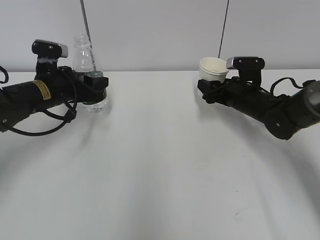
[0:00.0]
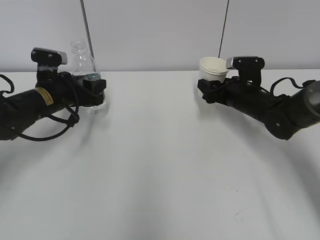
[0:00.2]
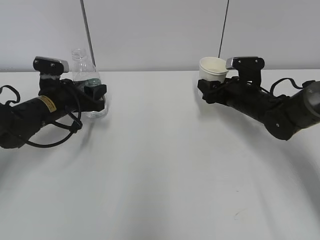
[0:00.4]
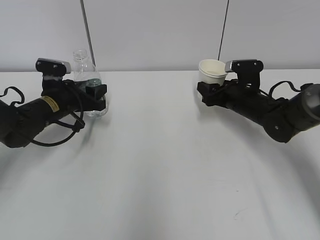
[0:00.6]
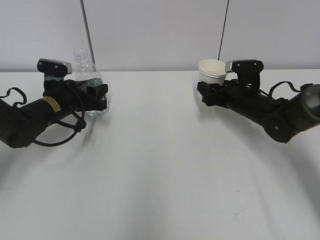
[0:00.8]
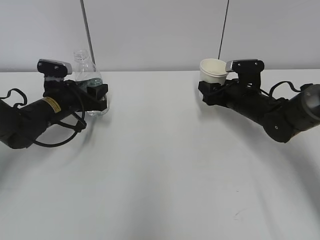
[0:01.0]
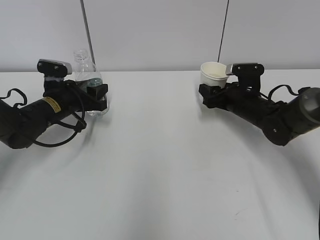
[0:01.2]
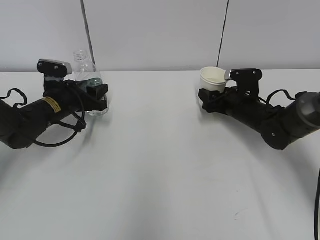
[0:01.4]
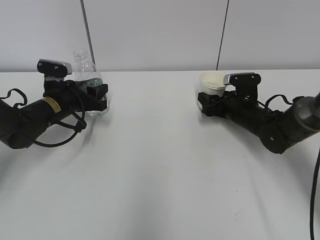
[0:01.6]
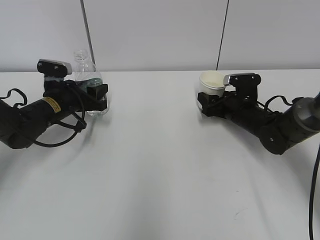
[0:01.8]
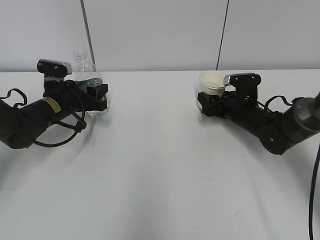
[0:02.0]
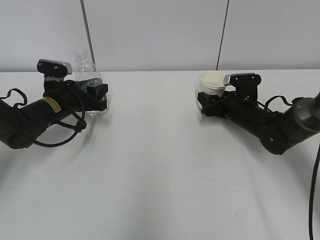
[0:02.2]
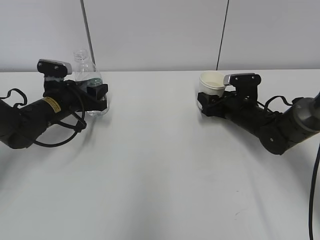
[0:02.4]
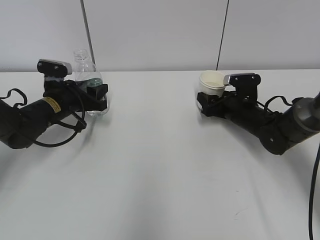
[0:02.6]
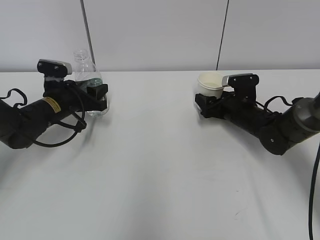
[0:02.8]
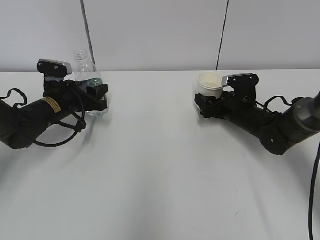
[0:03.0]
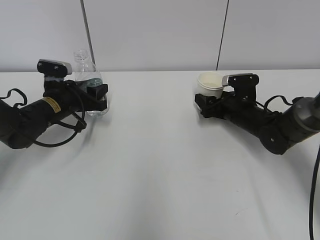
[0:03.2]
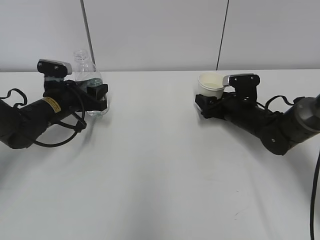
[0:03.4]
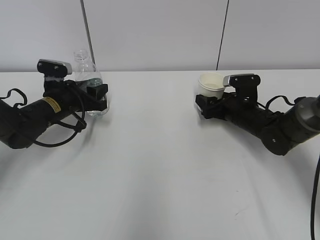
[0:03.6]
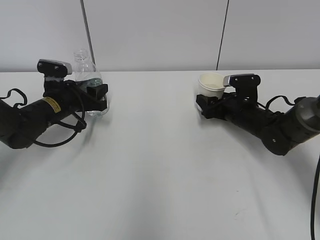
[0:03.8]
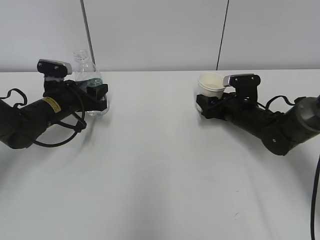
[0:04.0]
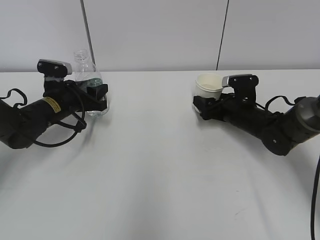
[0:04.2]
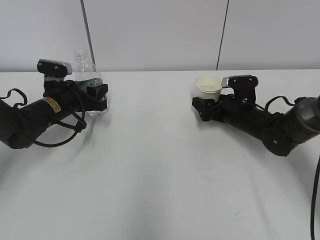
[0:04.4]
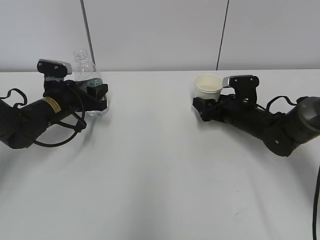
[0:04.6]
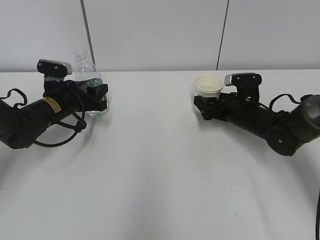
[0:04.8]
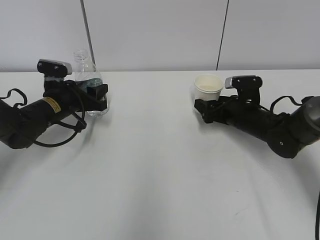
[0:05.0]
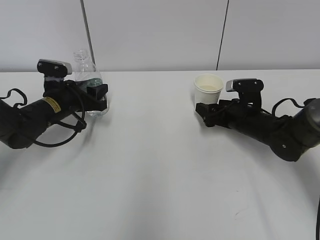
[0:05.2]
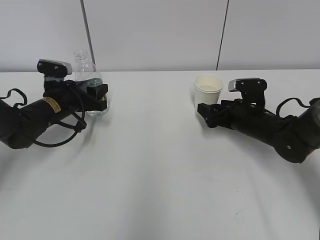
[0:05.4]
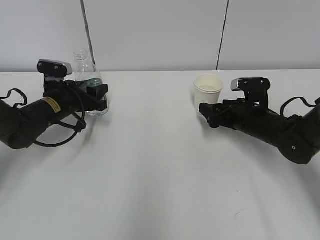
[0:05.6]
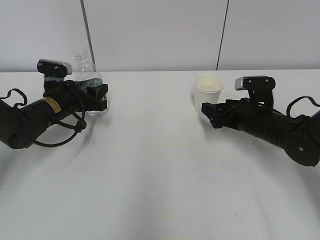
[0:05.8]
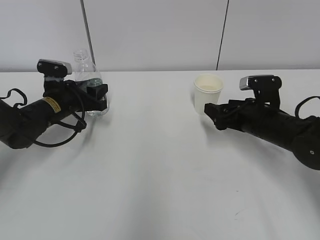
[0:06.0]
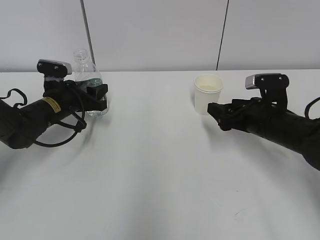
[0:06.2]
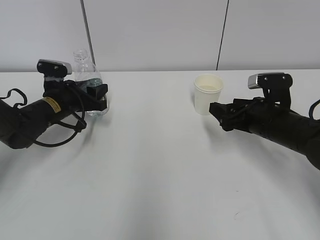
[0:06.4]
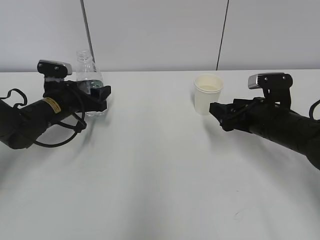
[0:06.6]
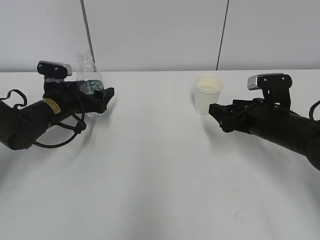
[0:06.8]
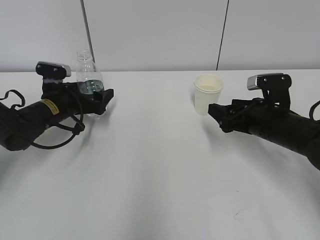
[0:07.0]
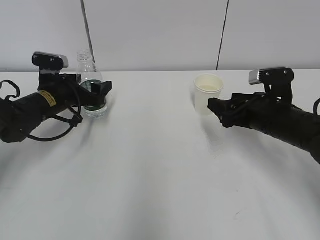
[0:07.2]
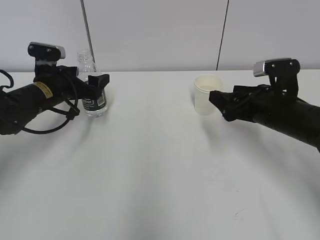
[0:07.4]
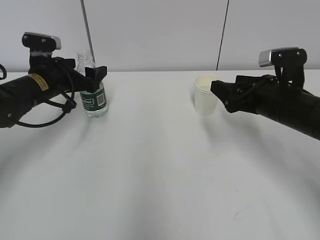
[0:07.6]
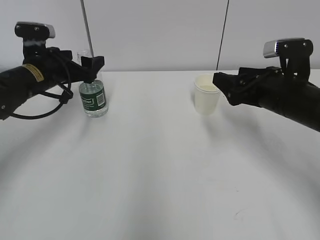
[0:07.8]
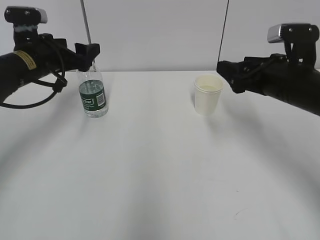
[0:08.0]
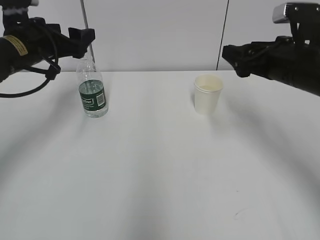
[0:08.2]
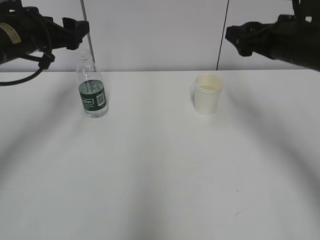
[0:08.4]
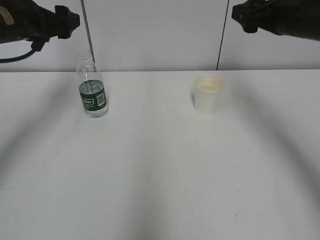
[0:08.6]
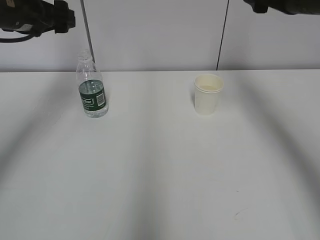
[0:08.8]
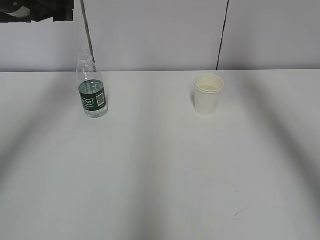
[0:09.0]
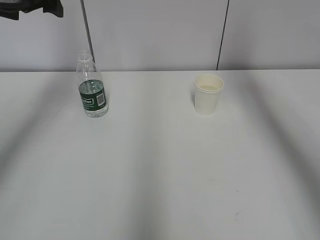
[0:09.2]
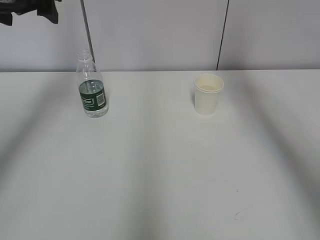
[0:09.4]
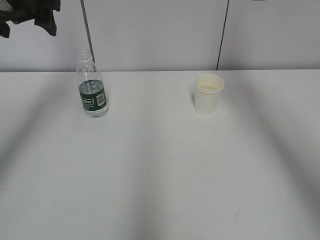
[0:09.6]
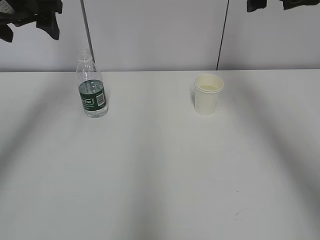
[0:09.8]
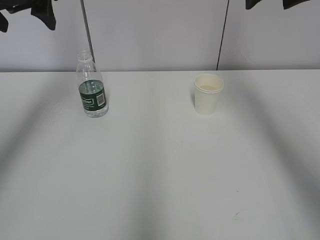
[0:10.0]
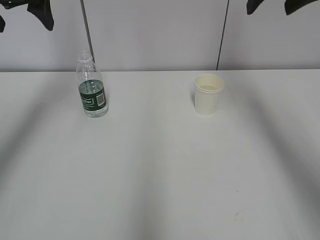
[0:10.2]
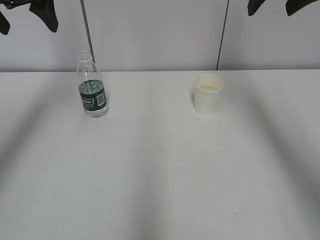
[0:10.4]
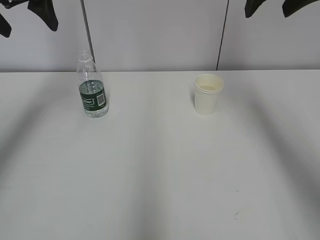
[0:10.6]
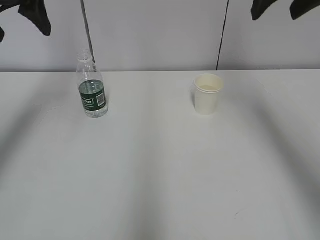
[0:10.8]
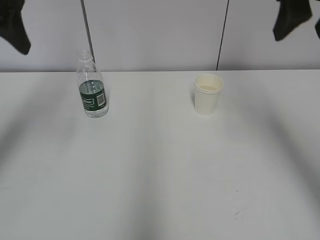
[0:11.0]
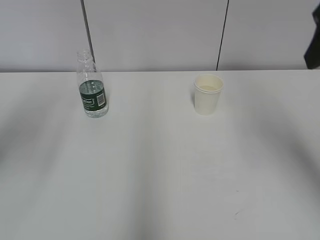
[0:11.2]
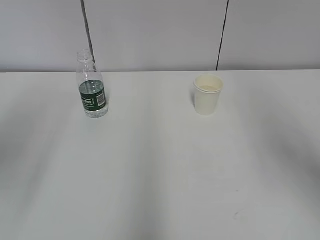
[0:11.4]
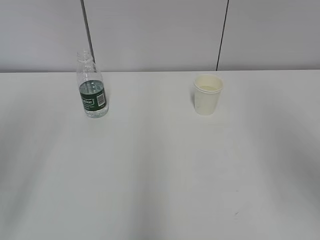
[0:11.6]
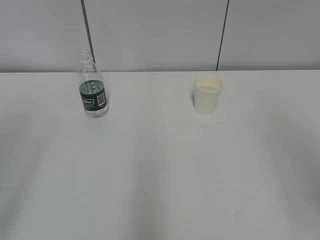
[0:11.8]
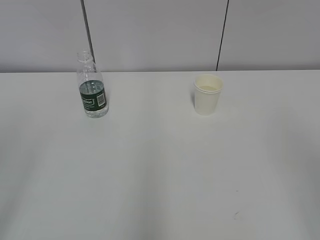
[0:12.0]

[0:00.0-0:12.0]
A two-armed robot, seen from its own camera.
Step, 0:00.0 to 0:01.4: Place the water bottle with the left hand.
0:00.0 to 0:01.6: The left gripper is displaced downward by some 5 cm.
0:01.6 to 0:03.0: The right gripper opens up.
0:03.0 to 0:04.4: The right gripper closes, then reopens.
0:04.4 to 0:06.0: The right gripper moves backward, some 5 cm.
0:06.0 to 0:07.6: Both grippers move upward, approximately 5 cm. The left gripper opens.
0:07.6 to 0:09.0: Both grippers travel together upward, roughly 20 cm.
0:09.0 to 0:10.4: The right gripper ends up some 5 cm from where it was; the left gripper shifts about 5 cm upward.
0:10.4 to 0:12.0: The grippers both shift backward by roughly 30 cm.

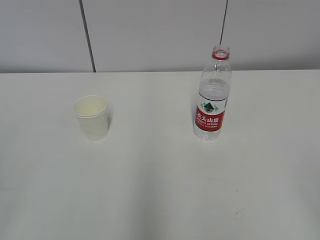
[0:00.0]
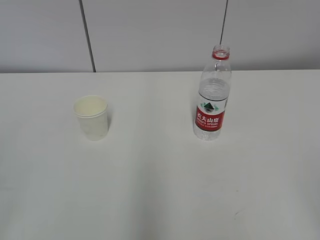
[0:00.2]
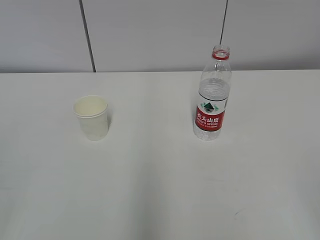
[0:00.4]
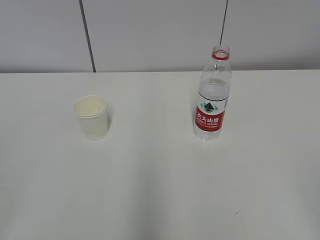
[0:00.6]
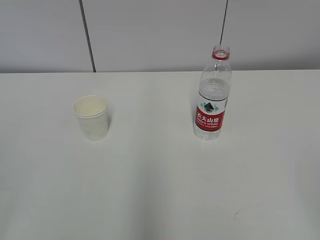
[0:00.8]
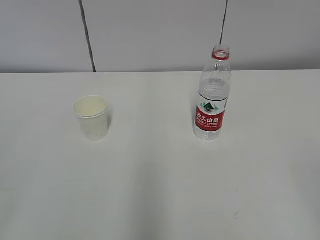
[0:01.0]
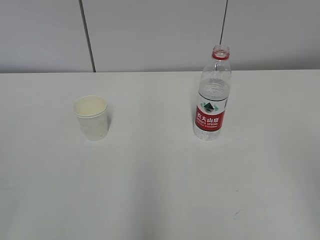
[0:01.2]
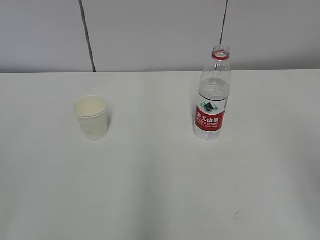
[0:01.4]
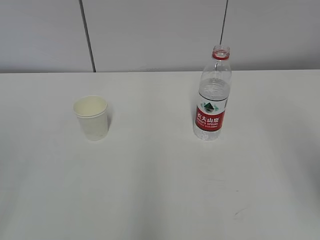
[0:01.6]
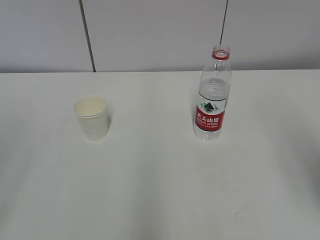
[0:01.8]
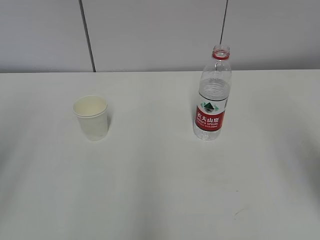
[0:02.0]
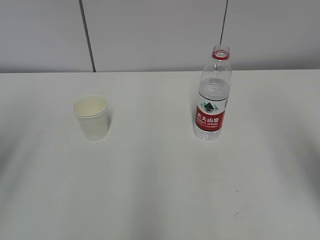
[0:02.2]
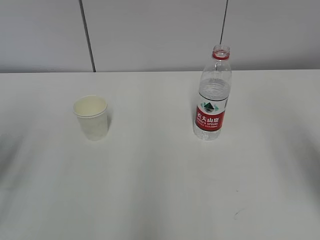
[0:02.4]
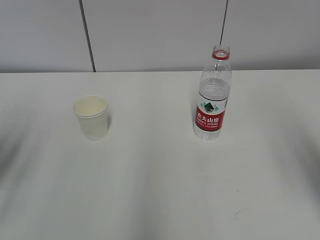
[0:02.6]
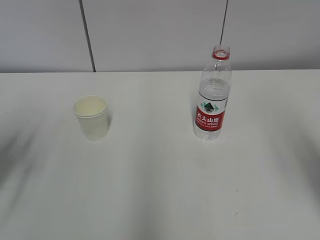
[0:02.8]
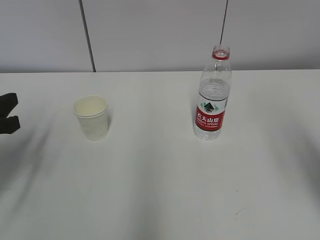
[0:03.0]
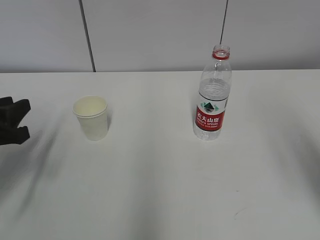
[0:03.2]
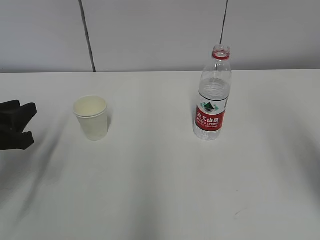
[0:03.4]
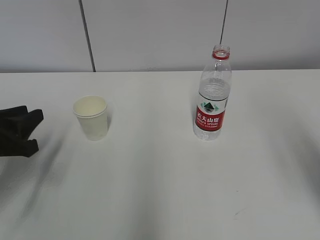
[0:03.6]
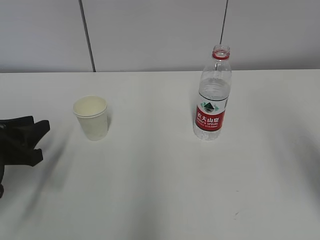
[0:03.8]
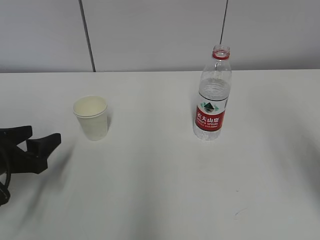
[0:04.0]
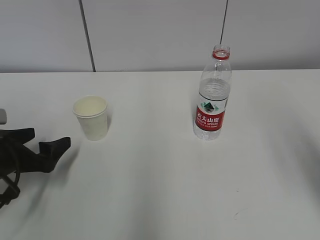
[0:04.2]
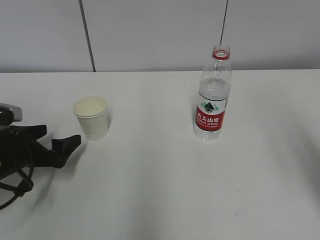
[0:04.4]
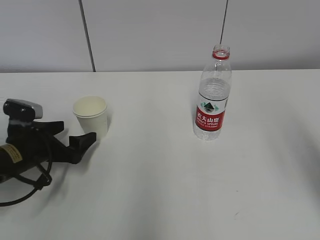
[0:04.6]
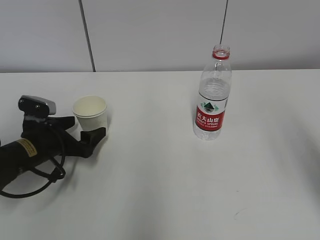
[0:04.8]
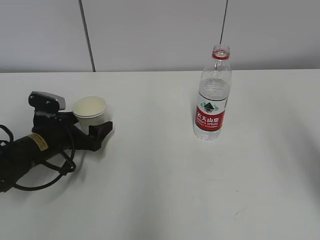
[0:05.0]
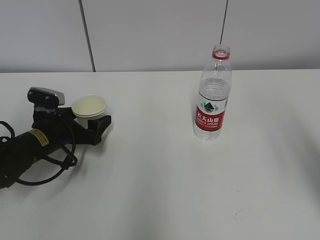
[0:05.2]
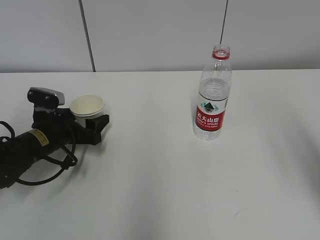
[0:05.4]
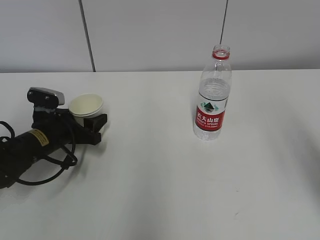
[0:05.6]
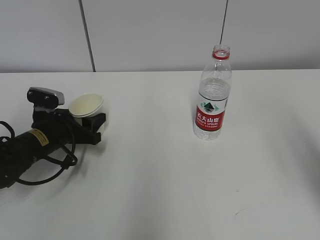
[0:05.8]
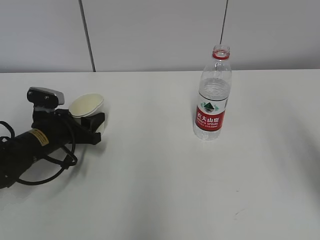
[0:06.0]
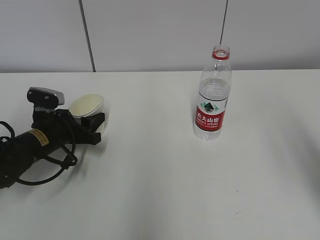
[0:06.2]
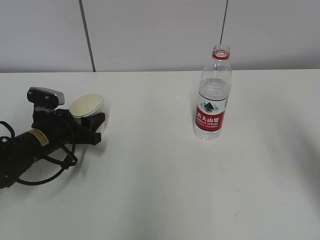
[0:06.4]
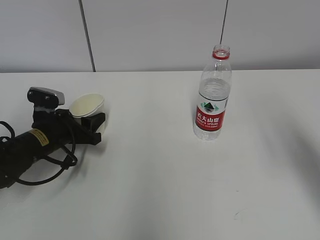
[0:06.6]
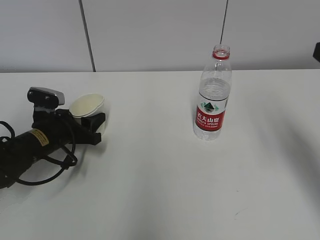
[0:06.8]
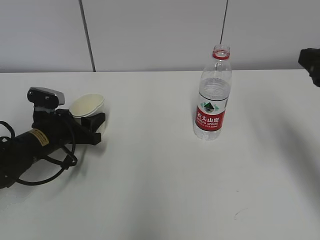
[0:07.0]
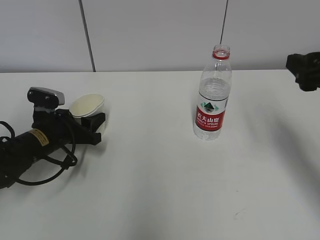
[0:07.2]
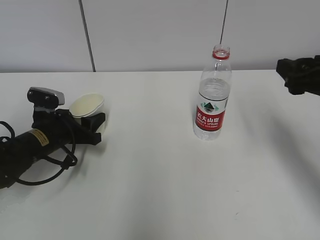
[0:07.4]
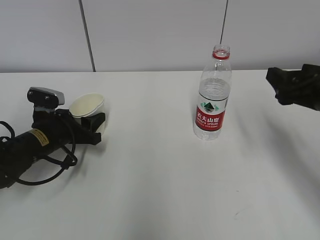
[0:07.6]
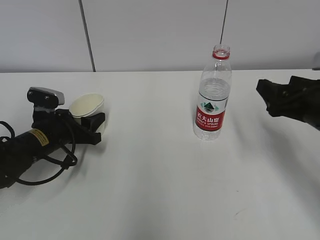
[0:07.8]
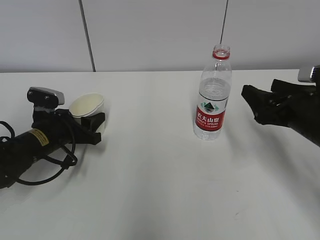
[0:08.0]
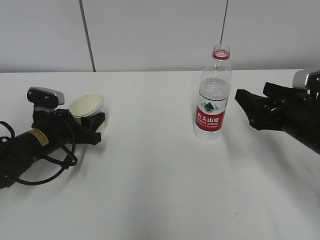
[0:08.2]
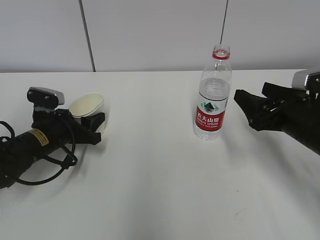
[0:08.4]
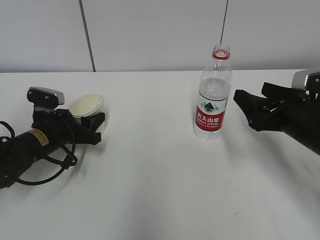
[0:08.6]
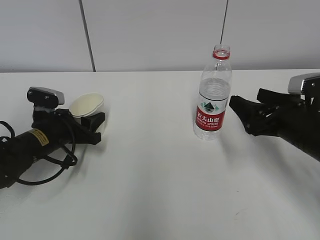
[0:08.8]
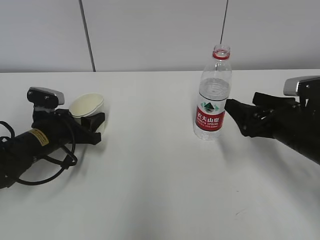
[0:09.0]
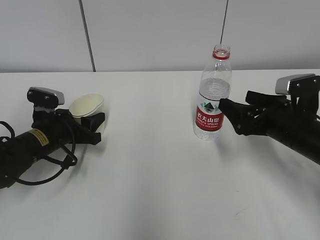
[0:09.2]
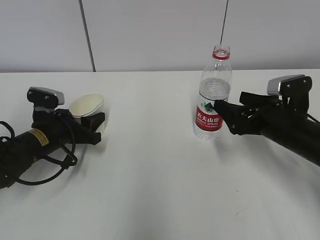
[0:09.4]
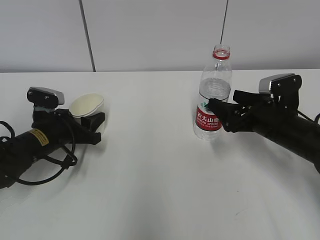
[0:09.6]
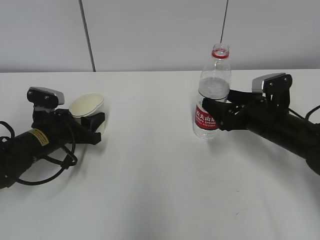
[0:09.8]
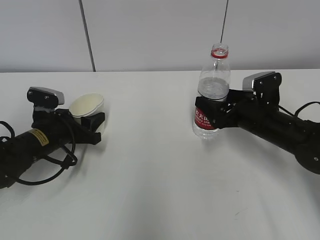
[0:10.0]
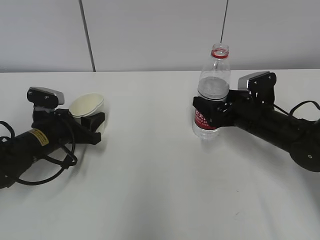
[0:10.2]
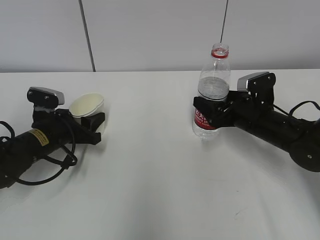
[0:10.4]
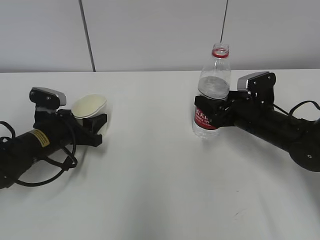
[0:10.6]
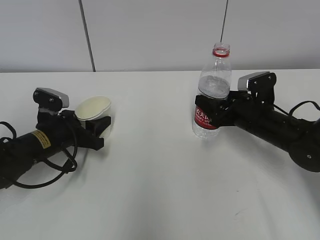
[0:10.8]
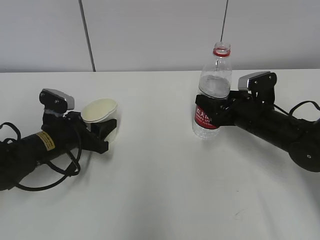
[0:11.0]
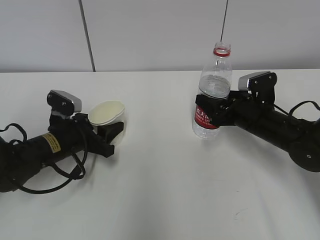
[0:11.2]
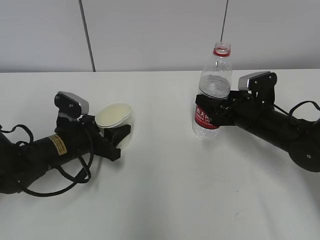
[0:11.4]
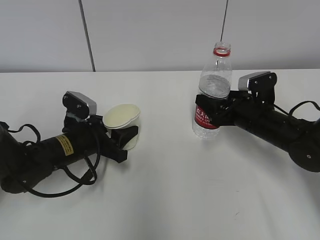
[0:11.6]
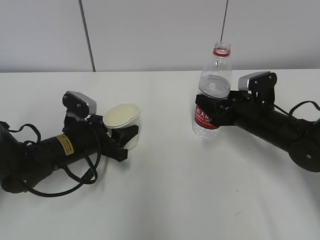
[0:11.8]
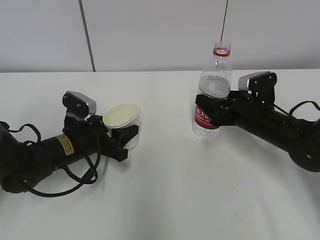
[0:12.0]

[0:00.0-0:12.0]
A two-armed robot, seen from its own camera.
Step, 0:00.0 to 0:04.6: Grab the paper cup with the left hand.
Step, 0:04.8 to 0:08.8: Grab the water bottle with the right hand.
0:01.6 to 0:03.0: The left gripper is displaced forward and downward by roughly 25 cm.
0:03.0 to 0:04.4: The left gripper moves downward, some 10 cm, and opens.
0:04.4 to 0:06.0: The left gripper travels forward by roughly 5 cm, and closes.
0:06.0 to 0:07.6: The right gripper goes some 20 cm forward and downward.
0:07.6 to 0:09.0: The right gripper goes approximately 10 cm downward.
0:09.0 to 0:10.4: The right gripper travels forward by roughly 10 cm.
0:10.4 to 0:12.0: The left gripper goes roughly 5 cm to the right; the right gripper closes up.
